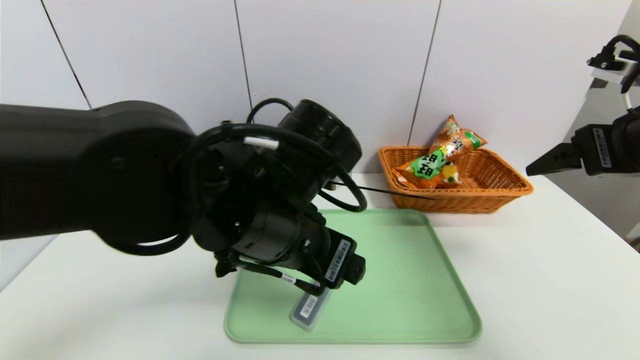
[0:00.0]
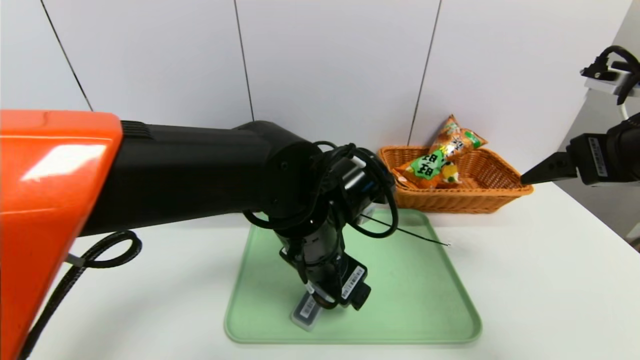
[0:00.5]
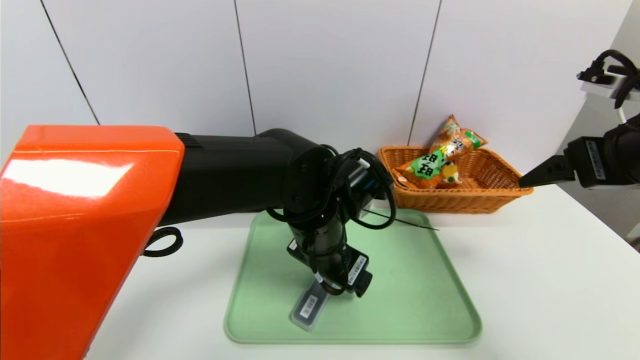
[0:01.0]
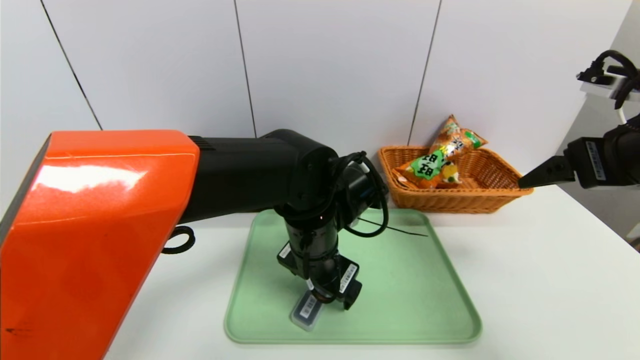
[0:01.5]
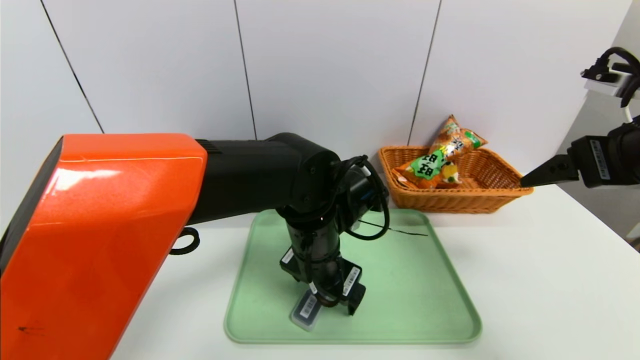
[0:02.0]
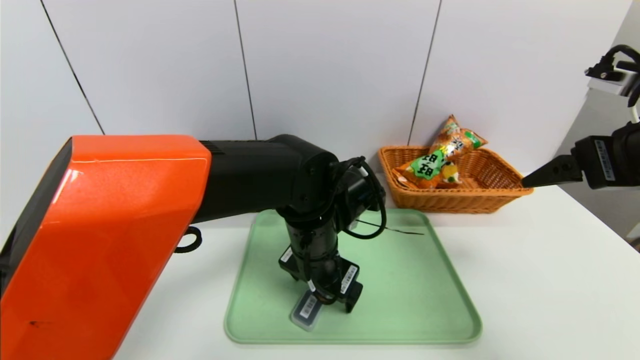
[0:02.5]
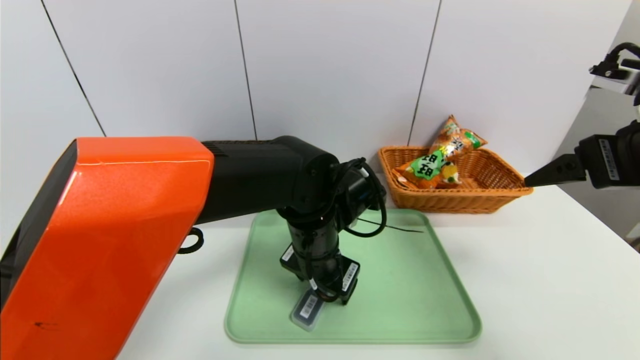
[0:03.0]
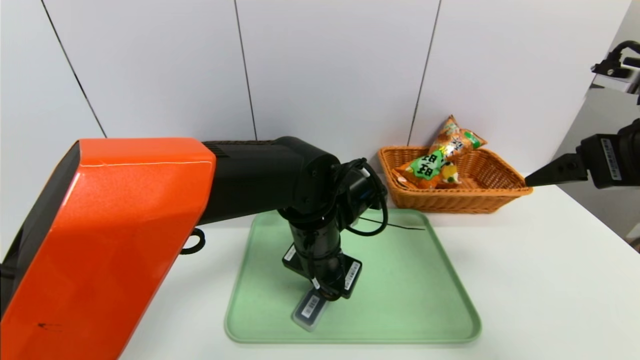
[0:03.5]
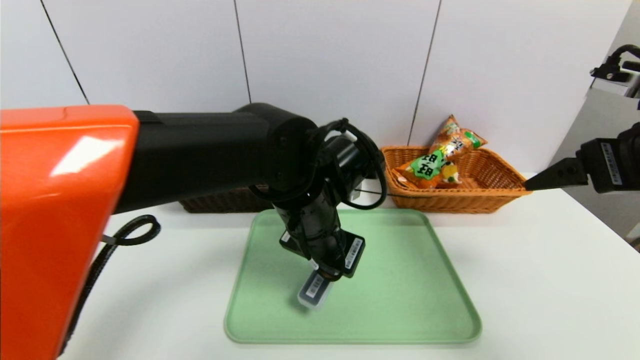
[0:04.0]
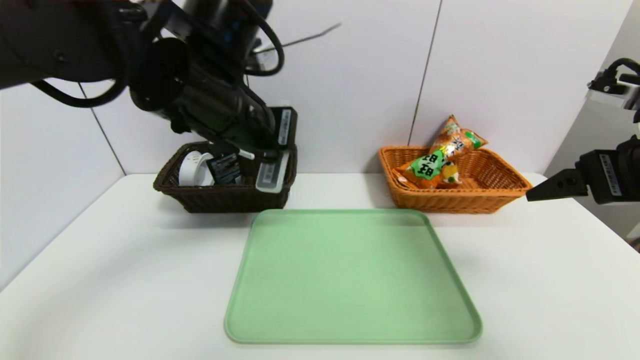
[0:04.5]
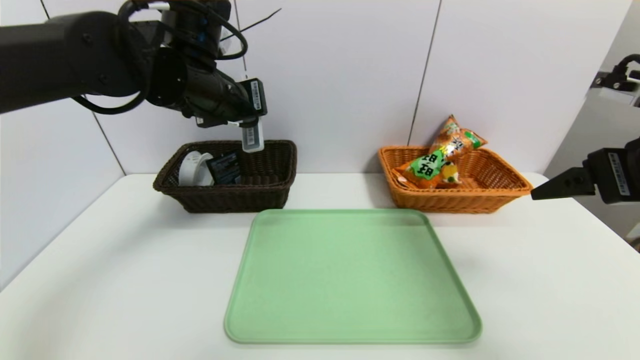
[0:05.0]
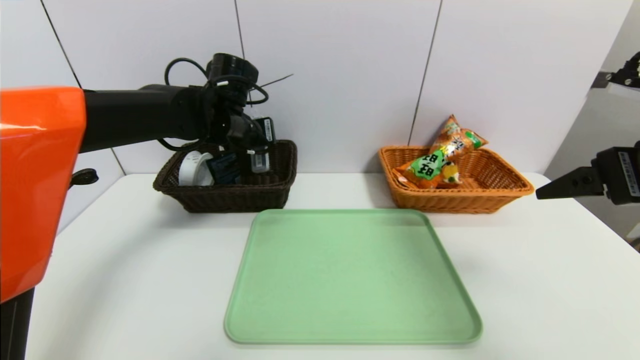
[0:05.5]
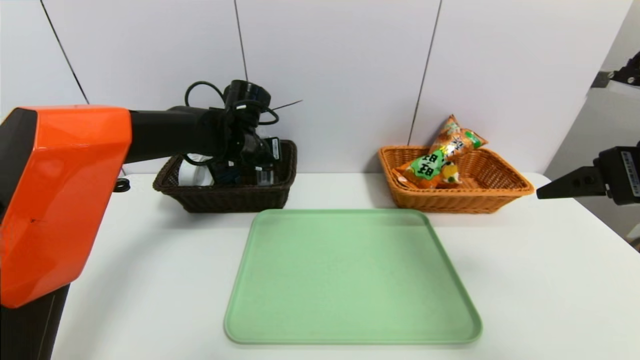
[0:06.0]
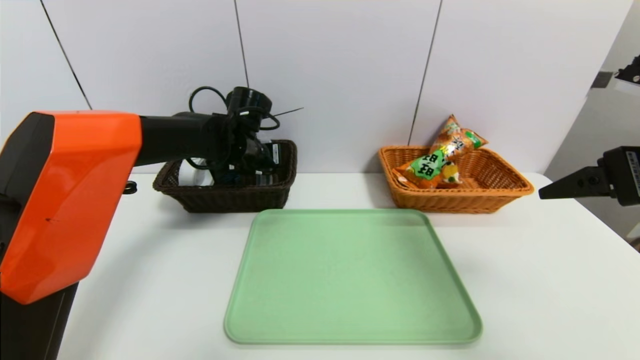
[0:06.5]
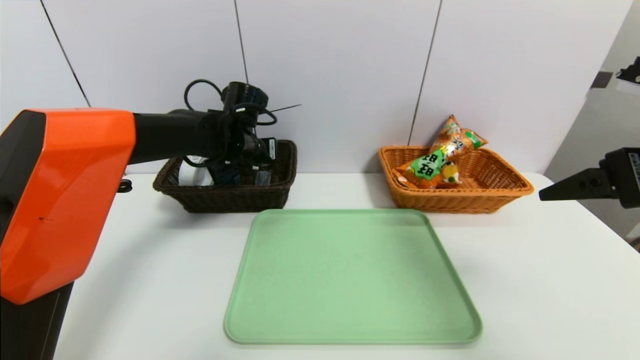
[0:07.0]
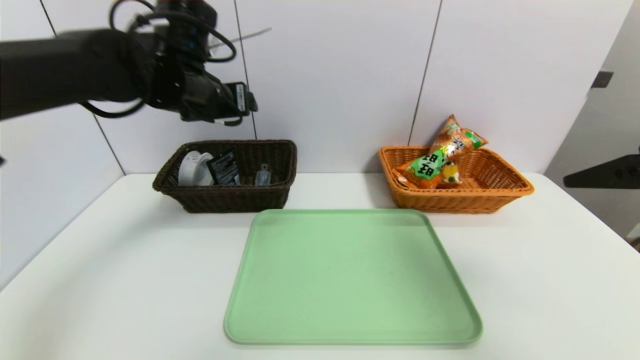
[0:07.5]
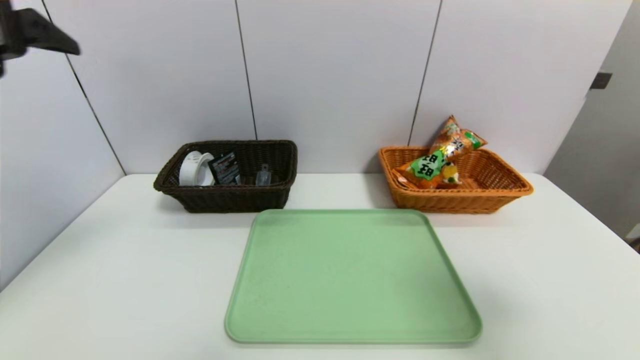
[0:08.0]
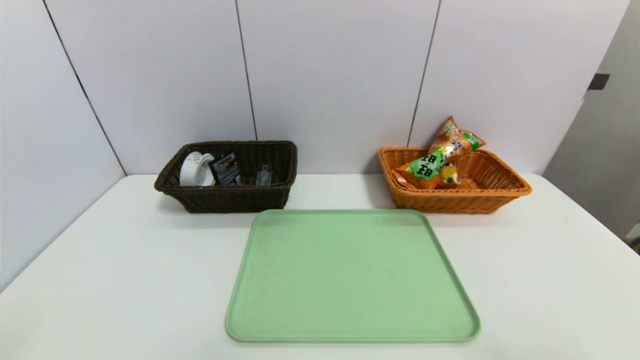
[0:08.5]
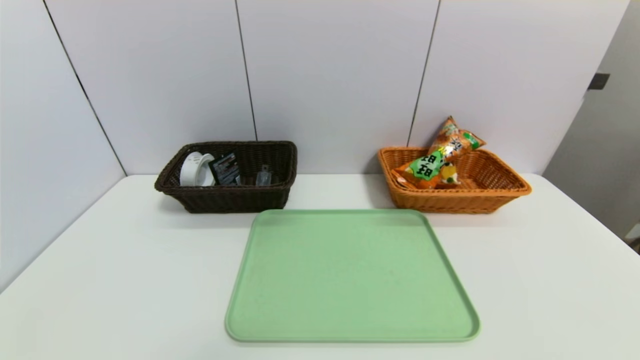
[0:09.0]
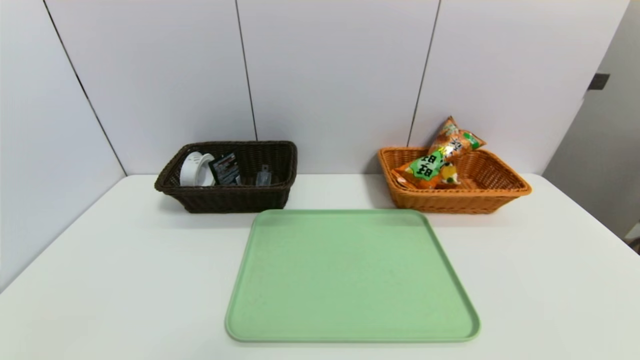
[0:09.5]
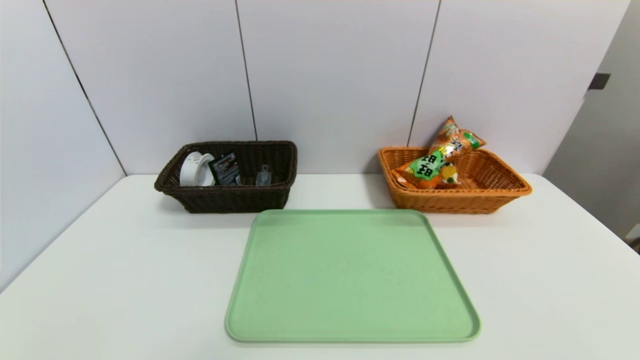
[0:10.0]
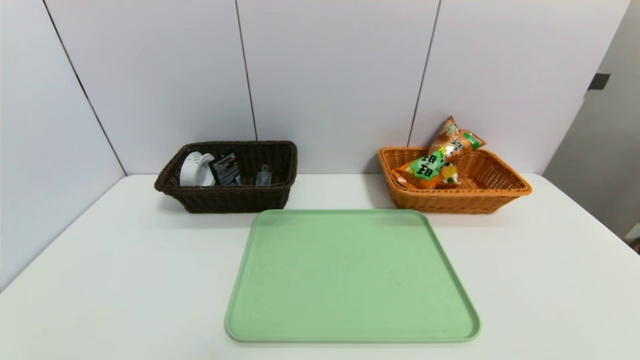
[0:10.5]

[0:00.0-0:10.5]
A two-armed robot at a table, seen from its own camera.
Task of the whole recording: place the food in the right basket with the right gripper, and place the non food items in the left basket with the left gripper.
Step, 0:00.0 to 0:07.0: Grasp the compass and put it in the left basket.
0:00.0 to 0:02.0: The left gripper shifts about 10 cm downward and forward.
0:02.0 to 0:04.0: The left gripper travels upward by approximately 5 cm, and closes up.
0:04.0 to 0:06.5: The left gripper shifts roughly 20 cm forward and to the left.
0:06.5 to 0:08.5: The right gripper heads backward, covering about 20 cm. The left gripper moves backward, some 50 cm, and opens its fingers.
